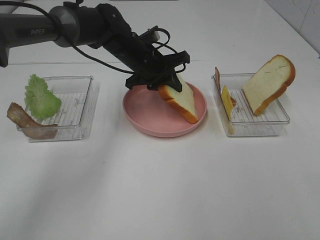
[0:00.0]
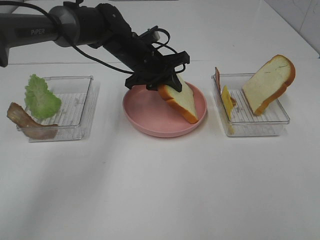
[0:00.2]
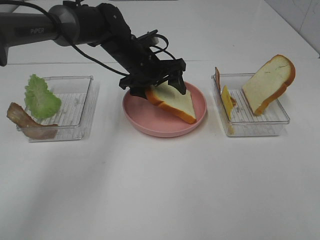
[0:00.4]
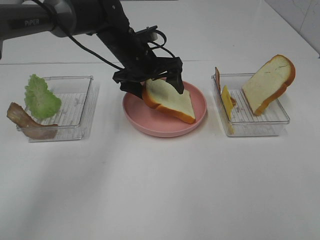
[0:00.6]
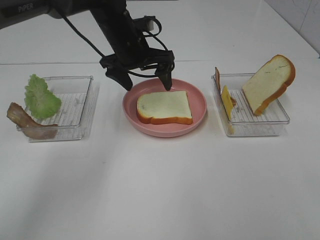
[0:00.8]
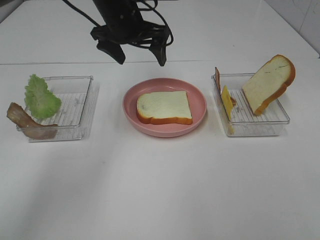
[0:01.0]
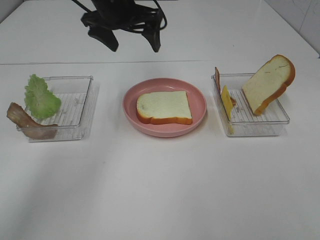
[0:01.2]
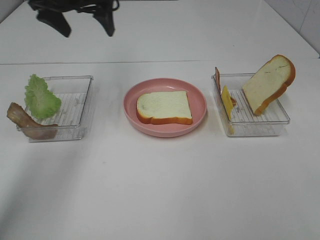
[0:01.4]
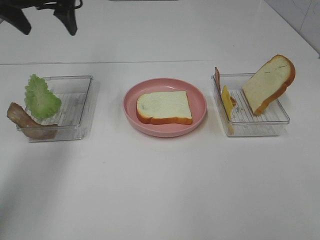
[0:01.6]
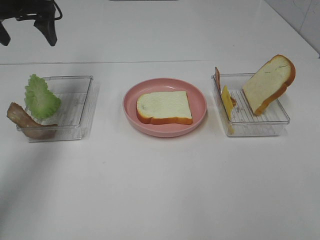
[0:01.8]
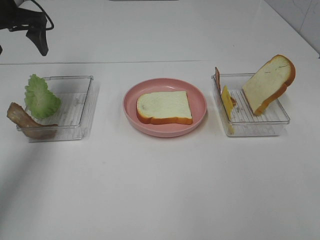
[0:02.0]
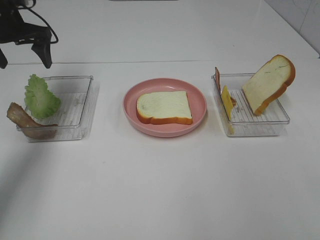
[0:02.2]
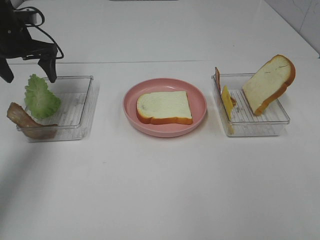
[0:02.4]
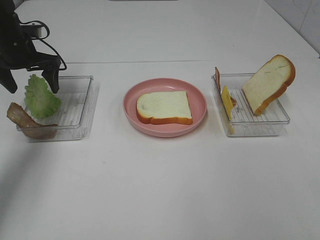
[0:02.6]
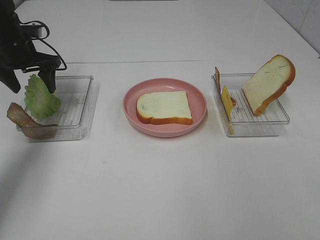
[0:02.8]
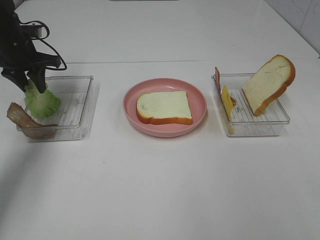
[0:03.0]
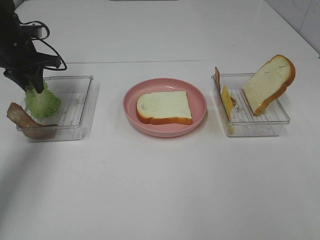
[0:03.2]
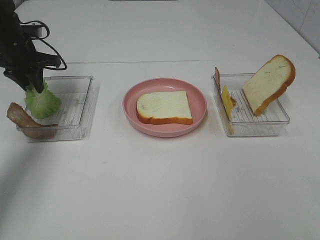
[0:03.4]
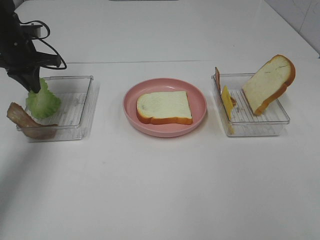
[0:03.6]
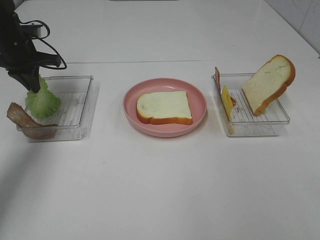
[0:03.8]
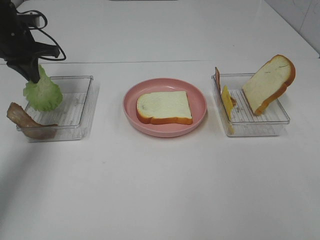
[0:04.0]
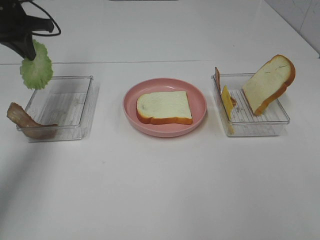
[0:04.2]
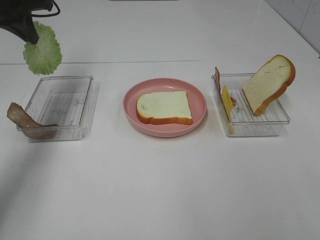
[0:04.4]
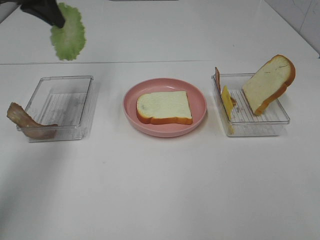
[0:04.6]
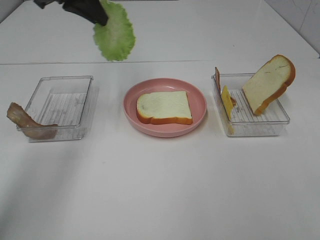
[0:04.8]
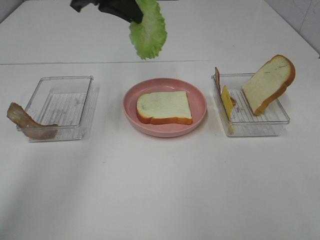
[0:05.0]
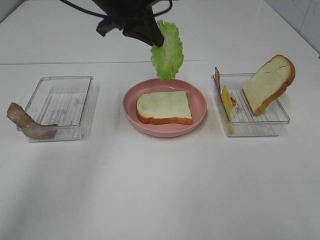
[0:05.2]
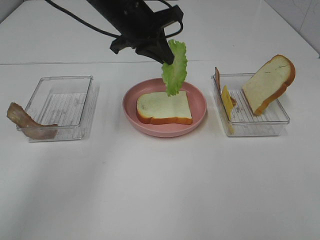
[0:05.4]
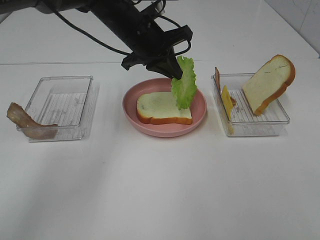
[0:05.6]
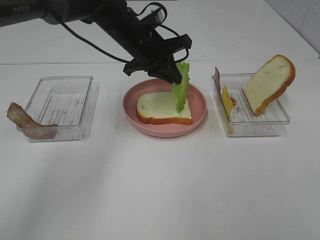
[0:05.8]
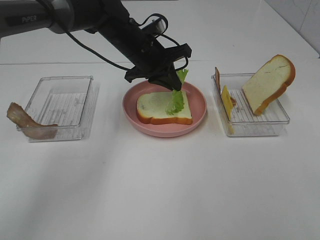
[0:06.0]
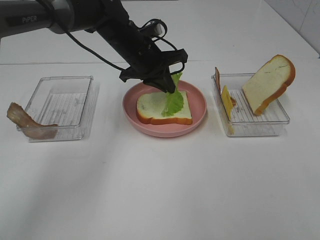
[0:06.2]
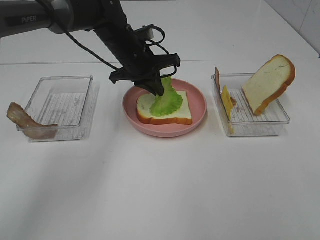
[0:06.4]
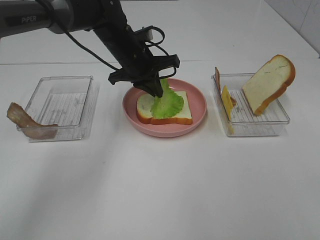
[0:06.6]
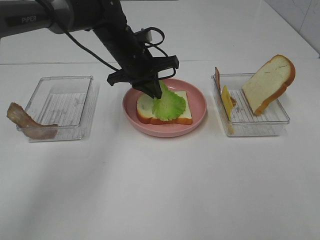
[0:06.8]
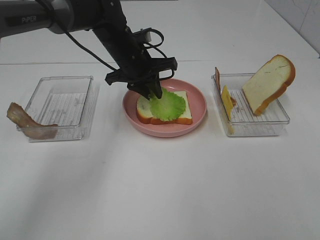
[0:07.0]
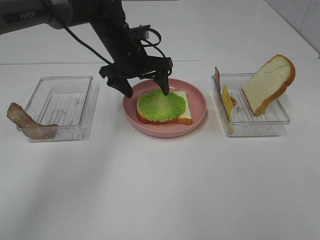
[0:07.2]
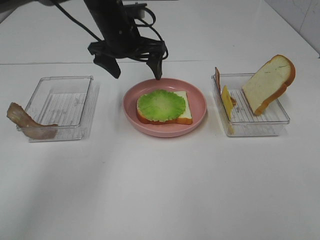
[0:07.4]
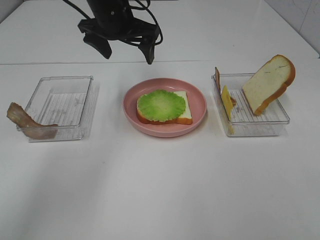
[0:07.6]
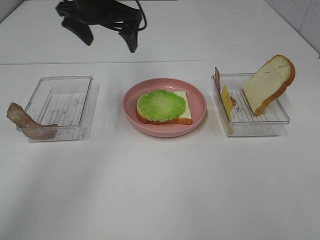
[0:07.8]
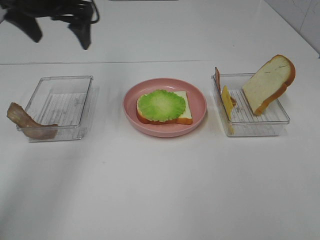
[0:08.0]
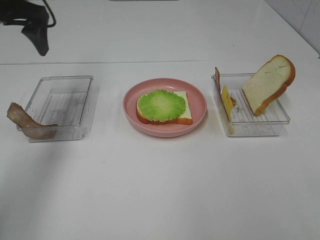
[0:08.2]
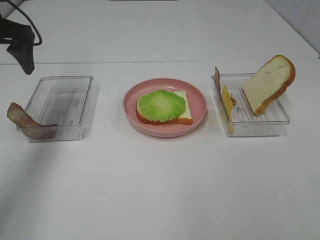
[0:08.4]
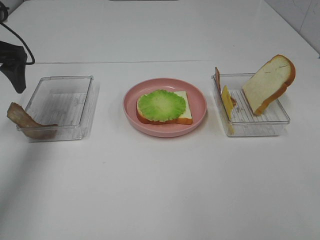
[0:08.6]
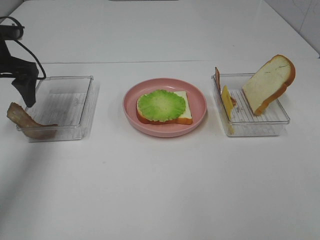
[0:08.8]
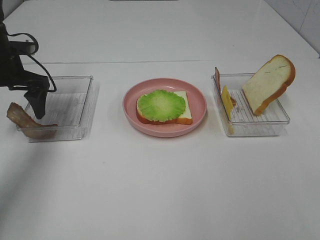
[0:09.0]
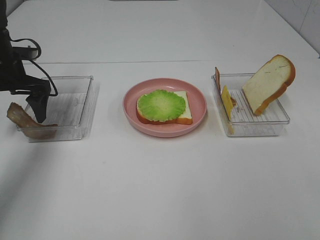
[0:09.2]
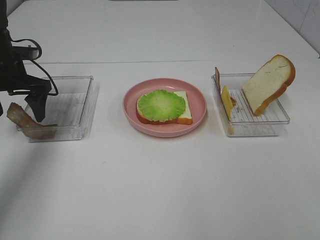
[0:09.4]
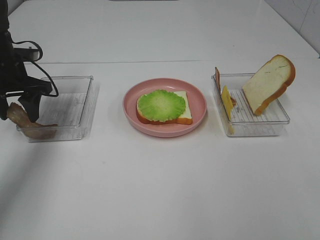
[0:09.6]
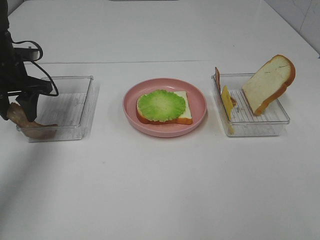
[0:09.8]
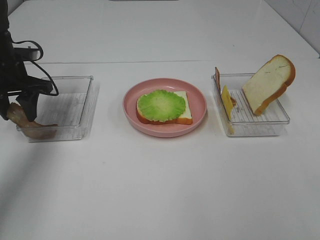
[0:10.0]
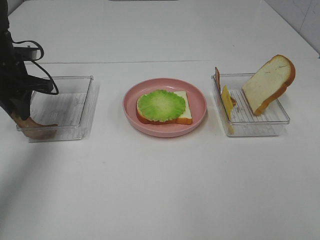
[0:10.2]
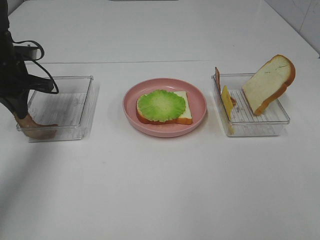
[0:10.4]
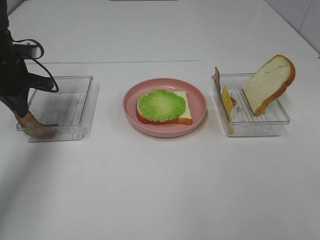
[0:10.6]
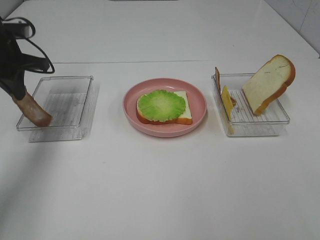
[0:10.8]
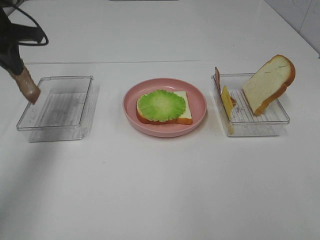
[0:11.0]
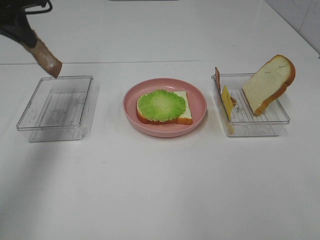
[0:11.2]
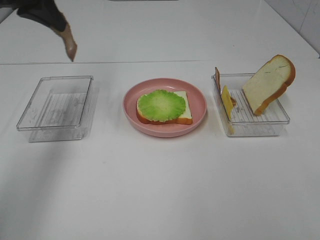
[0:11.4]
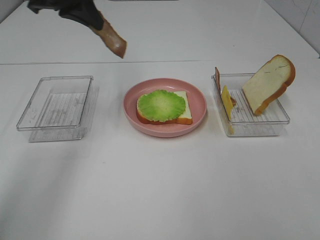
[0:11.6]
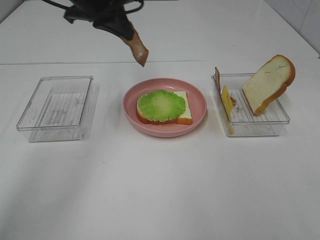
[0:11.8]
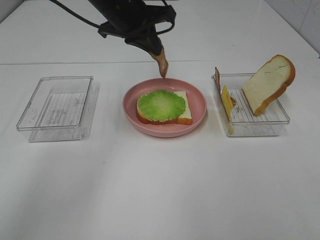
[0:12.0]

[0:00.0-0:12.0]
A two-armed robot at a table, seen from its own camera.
Task of the whole recording: Make sandwiches.
Step, 0:01.0 to 0:03.8: Left hand:grab the lettuce slice.
Step, 0:04.0 to 0:07.2: Left hand:place the lettuce slice on the bread slice.
Step, 0:07.4 to 0:10.6: Left hand:grab the bacon.
0:00.0 to 0:01.6: The left gripper goes roughly 25 cm to the left and upward, and opens up.
0:01.6 to 0:03.0: The left gripper goes roughly 15 cm downward and to the left, and closes its fingers.
0:03.0 to 0:04.4: The left gripper is displaced upward by some 10 cm.
0:04.4 to 0:06.0: The left gripper goes some 25 cm to the right and downward.
0:06.0 to 0:07.6: The left gripper moves upward, about 10 cm, and opens.
0:07.6 to 0:09.0: The left gripper goes approximately 20 cm to the left.
0:09.0 to 0:10.4: The left gripper closes up.
0:10.4 to 0:12.0: The left gripper shifts approximately 25 cm to the right and upward.

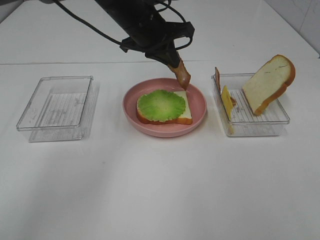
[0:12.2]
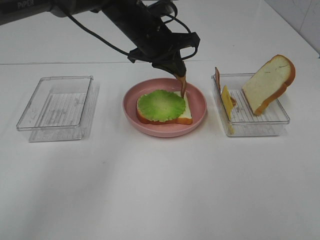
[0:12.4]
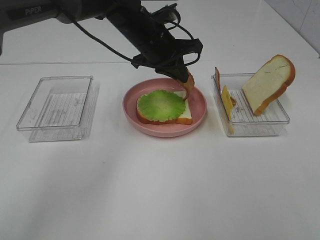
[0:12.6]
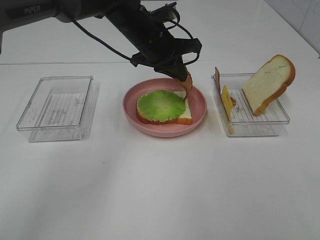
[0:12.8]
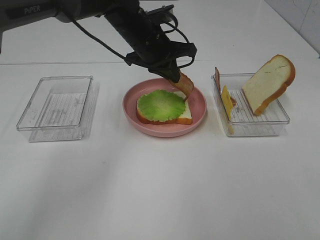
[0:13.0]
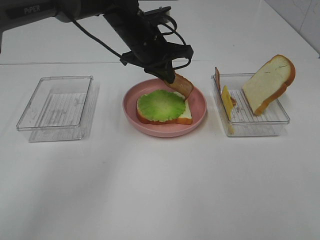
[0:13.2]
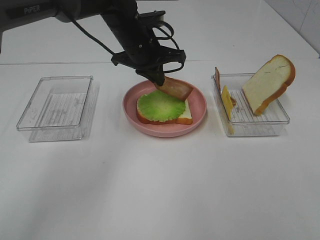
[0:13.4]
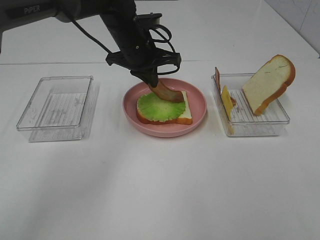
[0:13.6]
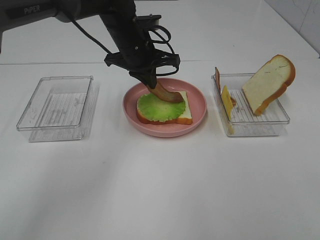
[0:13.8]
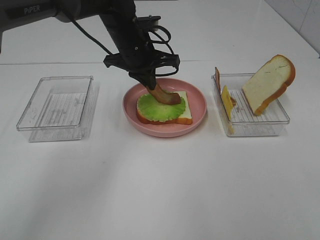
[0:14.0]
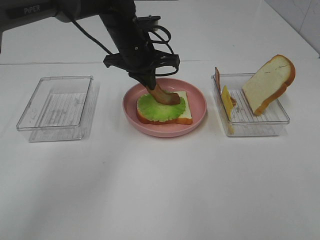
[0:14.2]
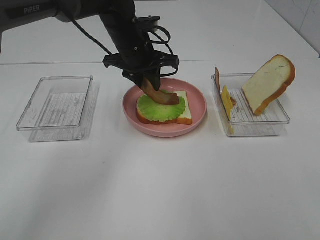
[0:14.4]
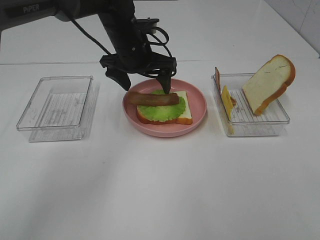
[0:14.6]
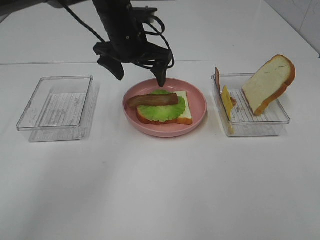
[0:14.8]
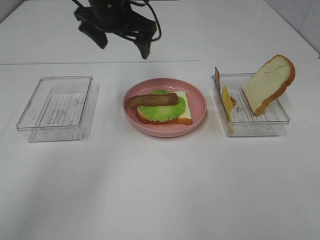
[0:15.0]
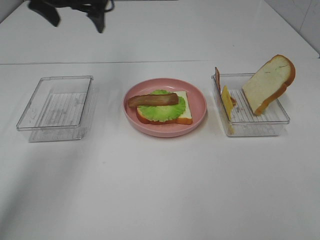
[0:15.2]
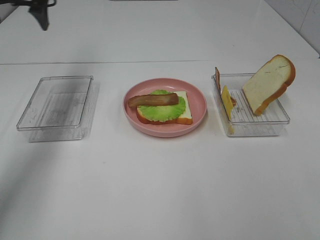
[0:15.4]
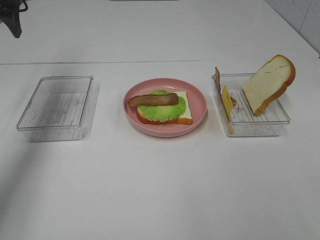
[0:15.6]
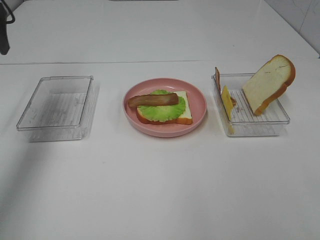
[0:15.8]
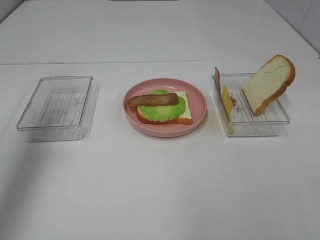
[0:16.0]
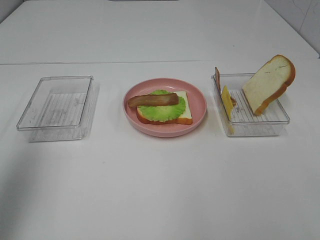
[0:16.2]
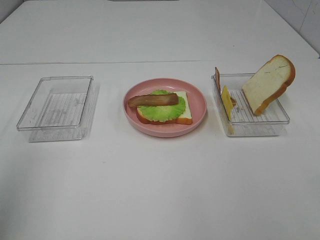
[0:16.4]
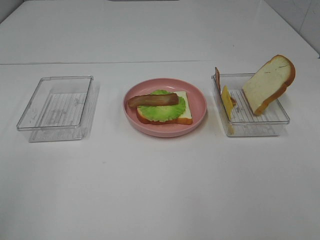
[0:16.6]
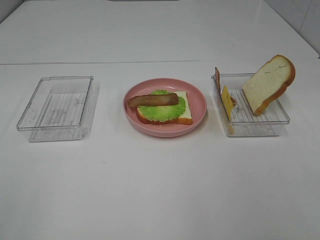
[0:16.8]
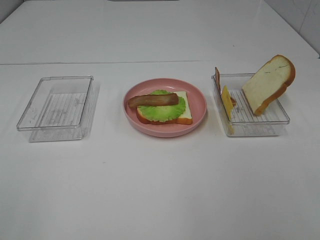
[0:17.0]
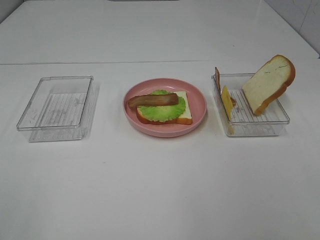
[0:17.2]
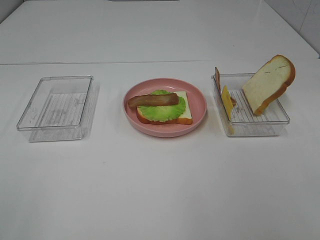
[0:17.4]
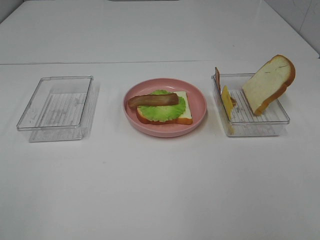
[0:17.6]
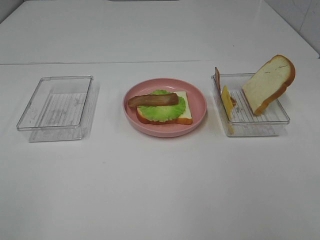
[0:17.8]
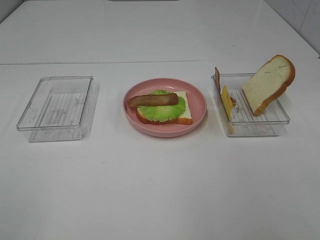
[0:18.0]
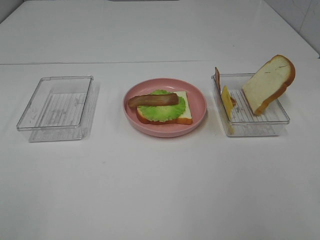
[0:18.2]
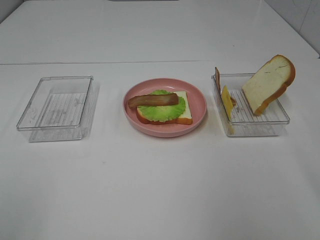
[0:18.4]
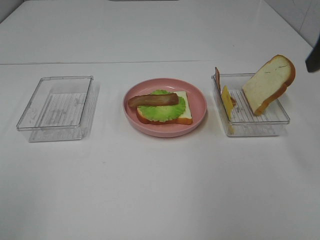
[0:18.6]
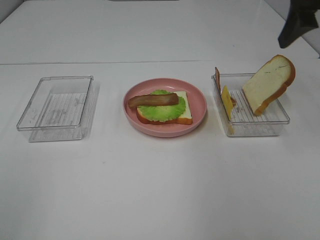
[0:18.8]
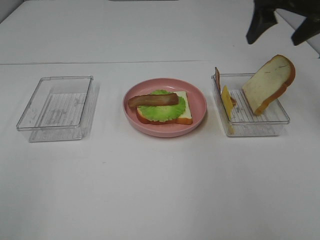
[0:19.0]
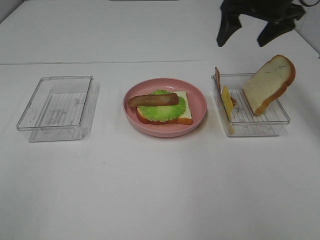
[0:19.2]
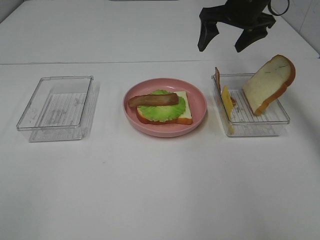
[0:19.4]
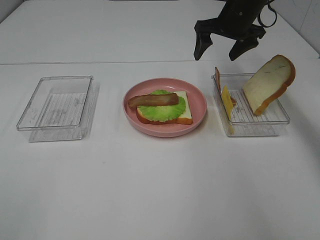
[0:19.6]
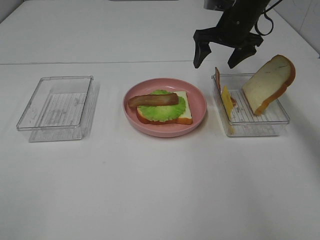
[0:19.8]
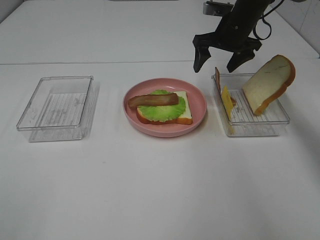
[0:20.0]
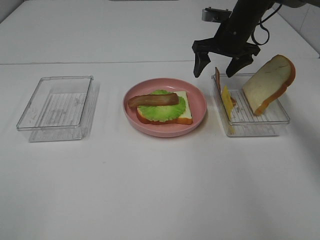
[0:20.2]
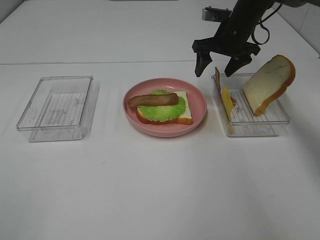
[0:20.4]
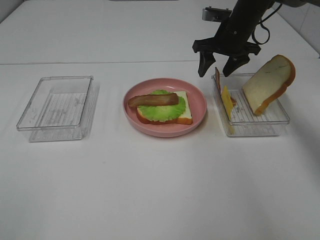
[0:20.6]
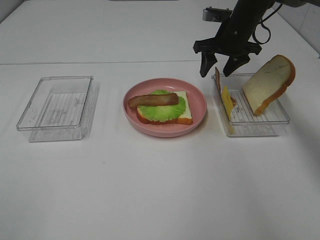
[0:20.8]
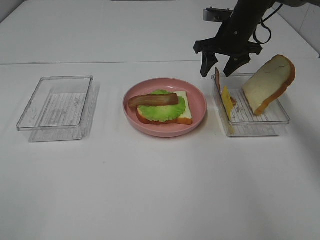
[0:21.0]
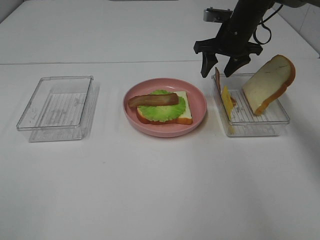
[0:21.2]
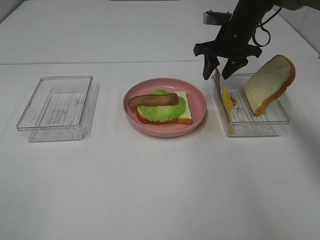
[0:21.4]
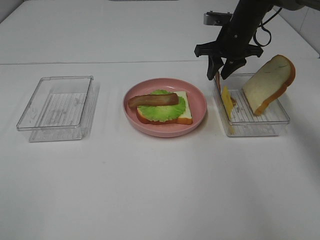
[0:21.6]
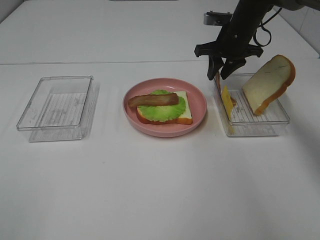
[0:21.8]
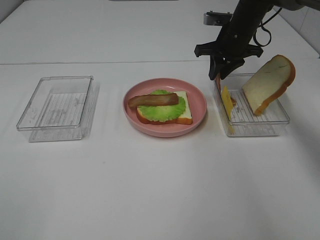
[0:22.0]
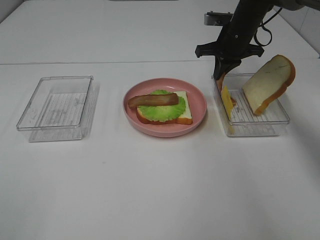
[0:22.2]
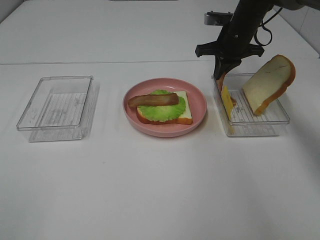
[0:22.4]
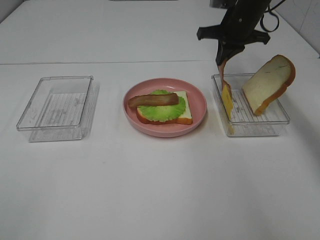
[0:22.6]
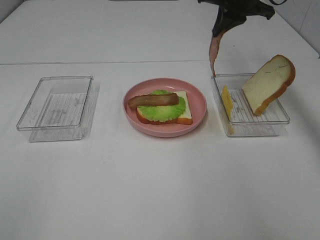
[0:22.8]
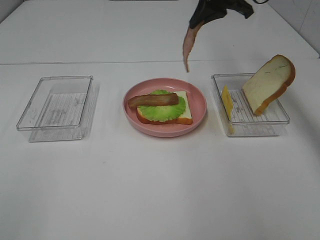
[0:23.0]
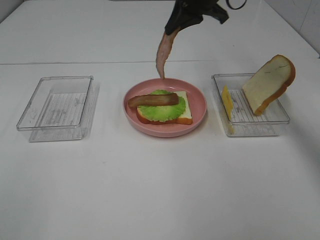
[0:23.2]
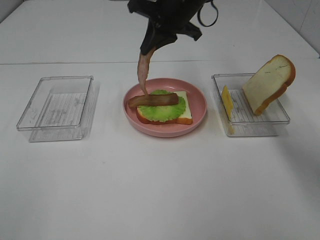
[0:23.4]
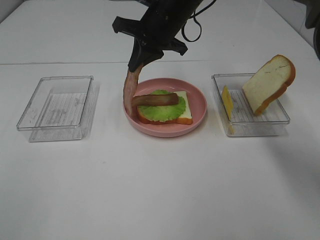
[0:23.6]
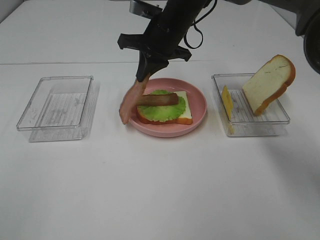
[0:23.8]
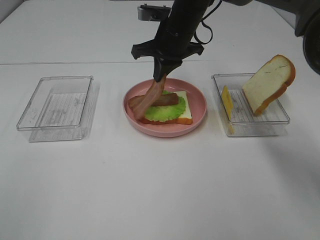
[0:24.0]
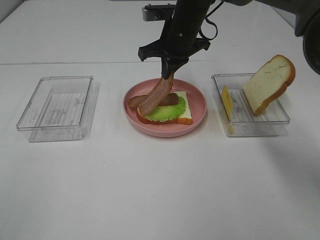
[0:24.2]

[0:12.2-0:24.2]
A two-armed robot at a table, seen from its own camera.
Task of the whole recording: Make sandwiches.
Step, 0:12.2 to 0:14.6: Left hand:place bacon on lettuce slice.
Step, 0:14.8 to 0:22.4: Right hand:grab the bacon.
0:12.2 to 0:13.8: There are only small adjustments of the grippers.
0:13.8 to 0:15.2: The left gripper moves to the left and upward, approximately 20 cm, and opens.
0:15.2 to 0:16.6: The left gripper moves backward, roughly 40 cm.
0:18.2 to 0:19.8: The right gripper moves forward, approximately 40 cm.
0:19.8 to 0:21.2: The grippers make only small movements.
0:21.2 to 0:22.6: The right gripper closes its fingers.
0:22.6 to 0:24.2: The right gripper travels to the left by roughly 15 cm.
